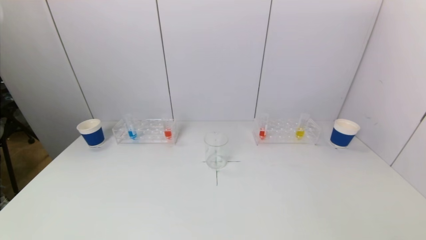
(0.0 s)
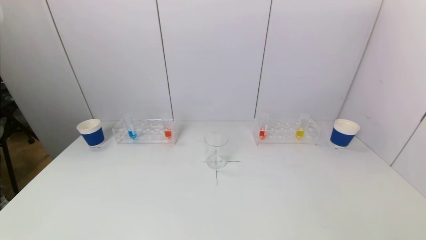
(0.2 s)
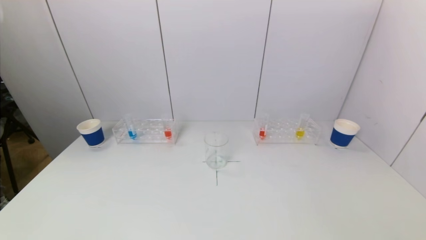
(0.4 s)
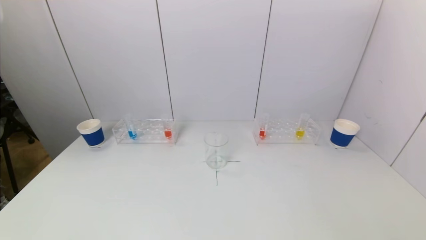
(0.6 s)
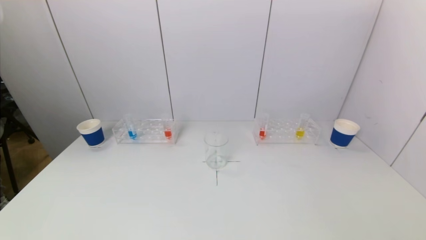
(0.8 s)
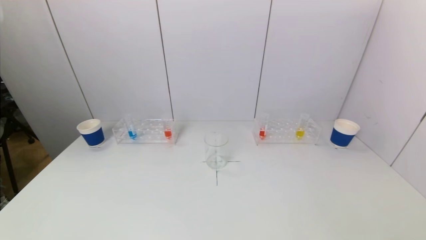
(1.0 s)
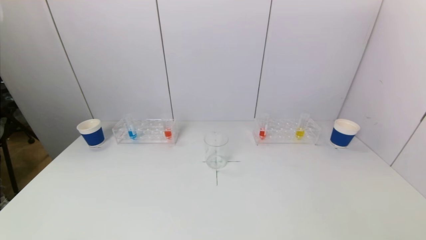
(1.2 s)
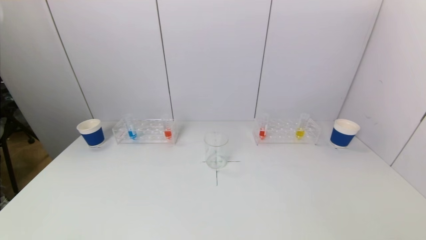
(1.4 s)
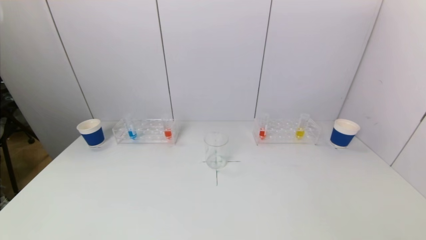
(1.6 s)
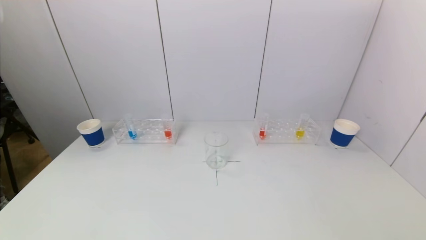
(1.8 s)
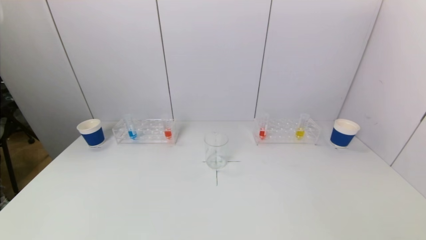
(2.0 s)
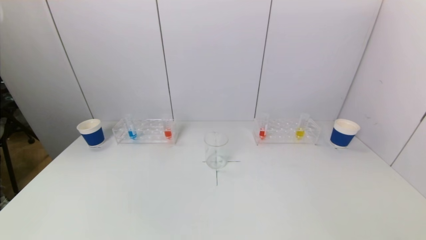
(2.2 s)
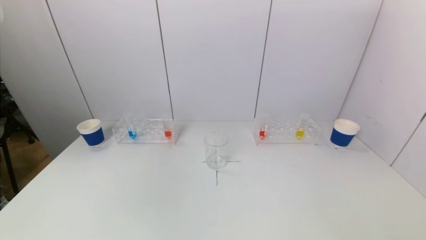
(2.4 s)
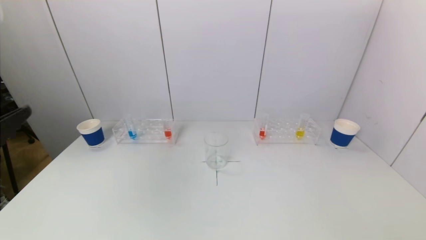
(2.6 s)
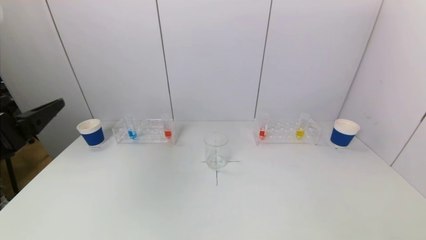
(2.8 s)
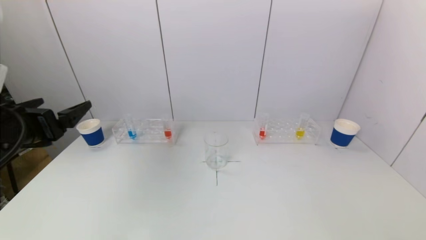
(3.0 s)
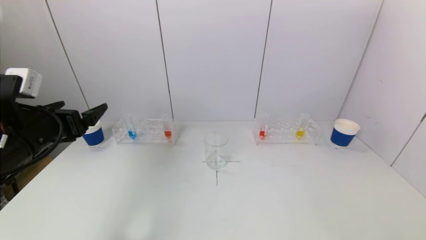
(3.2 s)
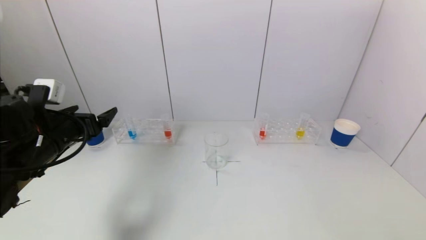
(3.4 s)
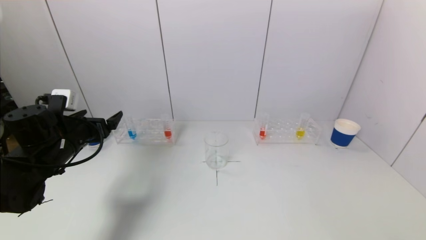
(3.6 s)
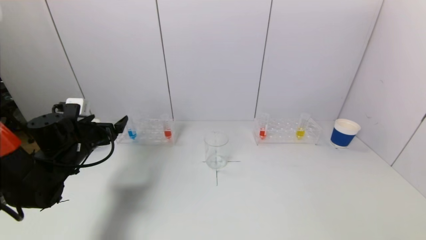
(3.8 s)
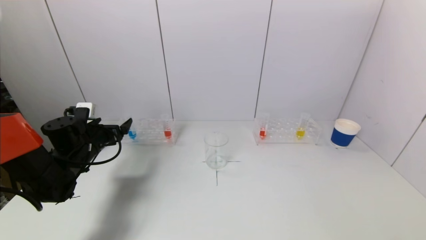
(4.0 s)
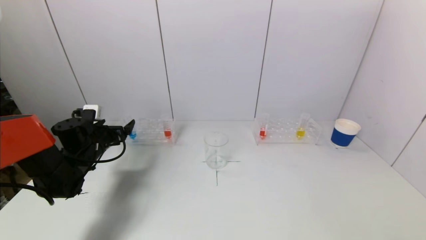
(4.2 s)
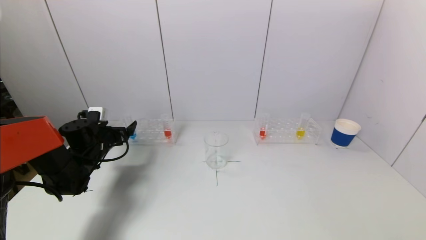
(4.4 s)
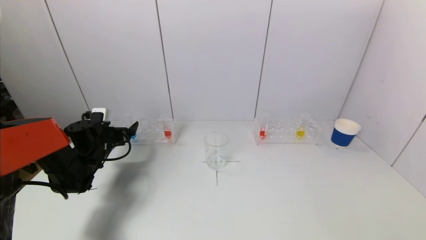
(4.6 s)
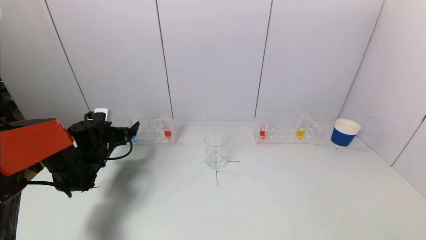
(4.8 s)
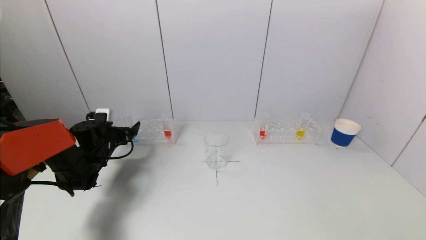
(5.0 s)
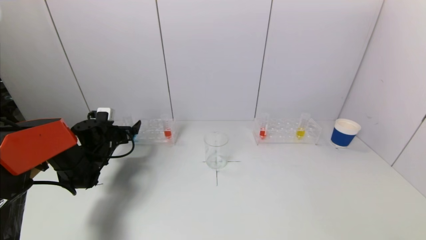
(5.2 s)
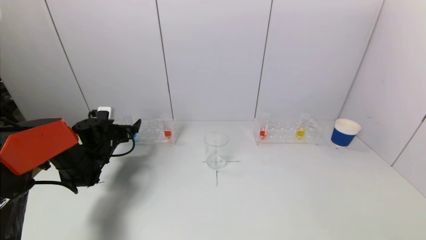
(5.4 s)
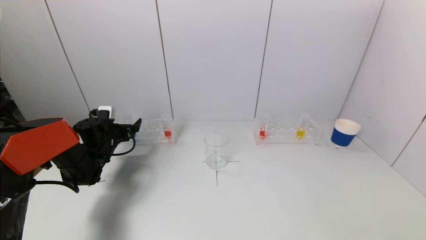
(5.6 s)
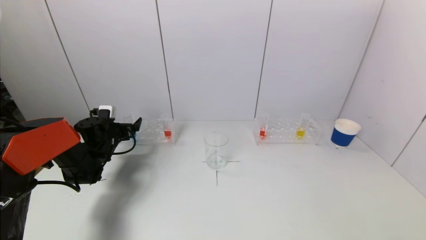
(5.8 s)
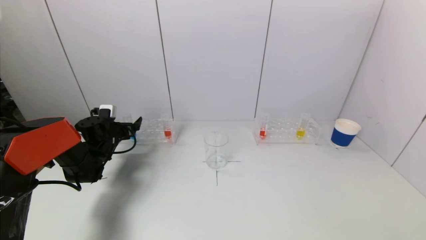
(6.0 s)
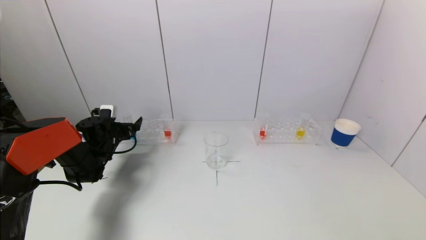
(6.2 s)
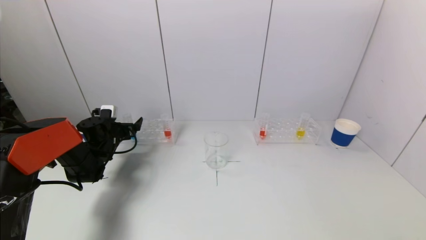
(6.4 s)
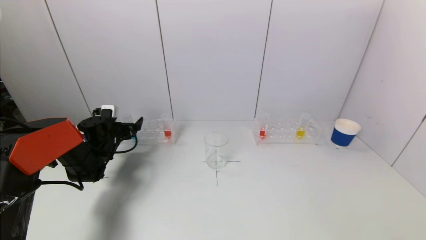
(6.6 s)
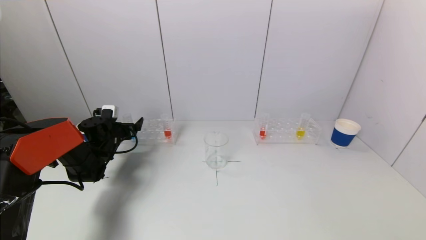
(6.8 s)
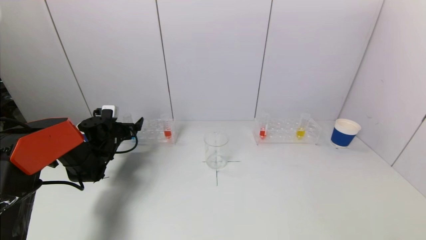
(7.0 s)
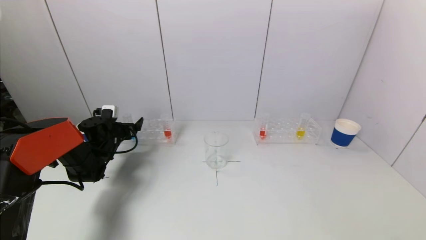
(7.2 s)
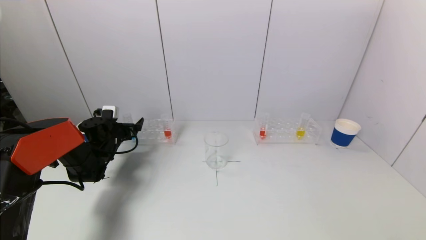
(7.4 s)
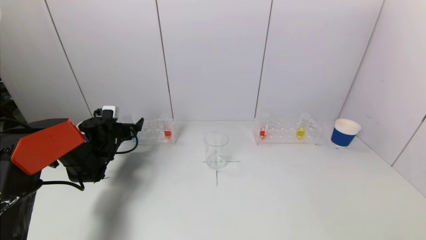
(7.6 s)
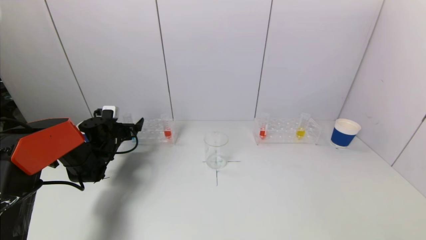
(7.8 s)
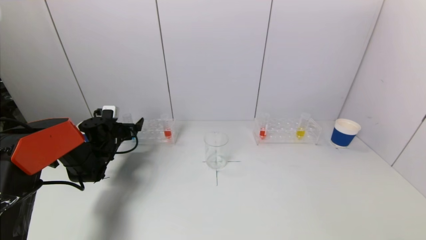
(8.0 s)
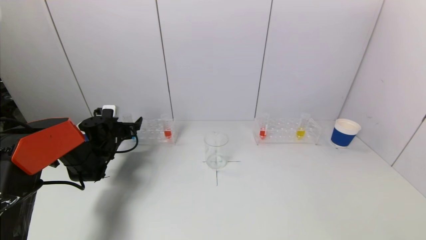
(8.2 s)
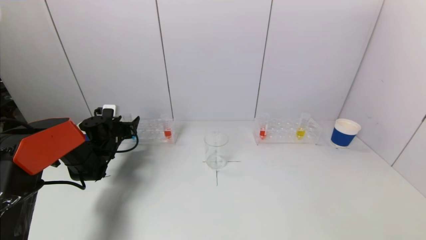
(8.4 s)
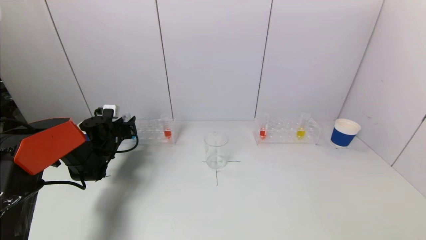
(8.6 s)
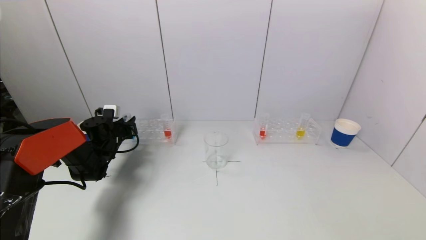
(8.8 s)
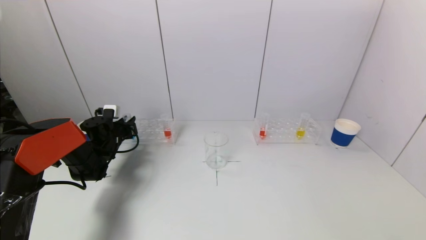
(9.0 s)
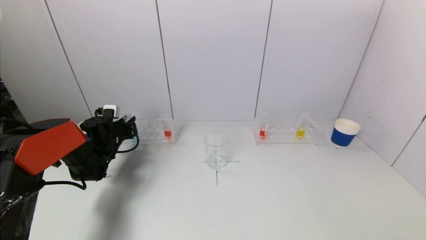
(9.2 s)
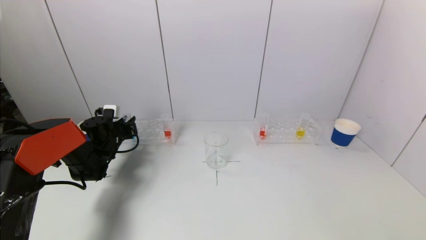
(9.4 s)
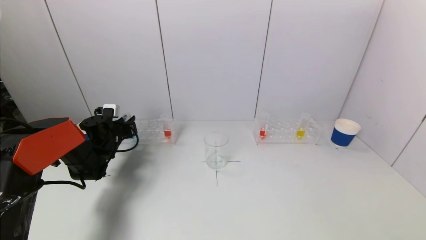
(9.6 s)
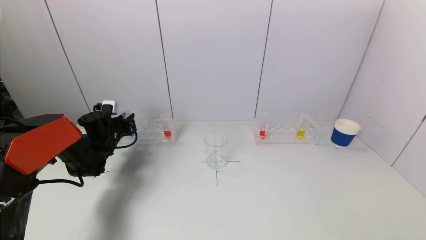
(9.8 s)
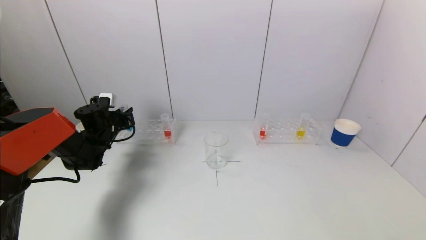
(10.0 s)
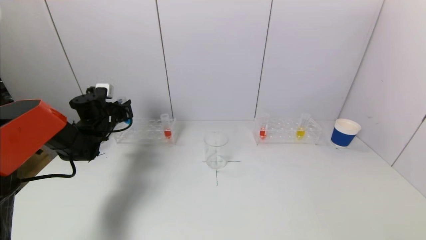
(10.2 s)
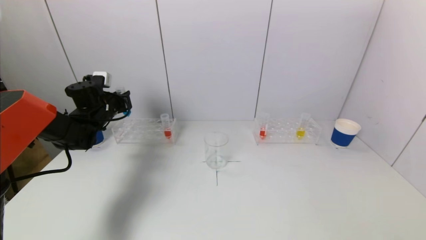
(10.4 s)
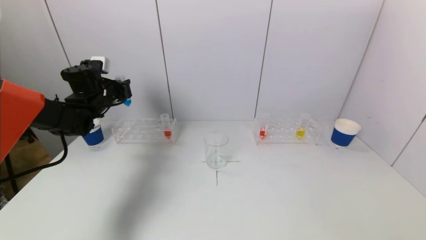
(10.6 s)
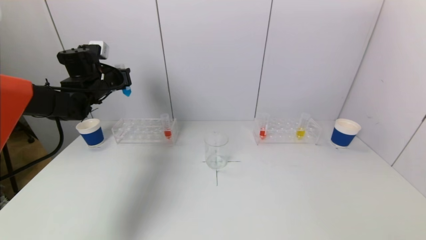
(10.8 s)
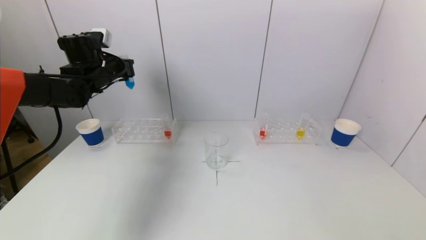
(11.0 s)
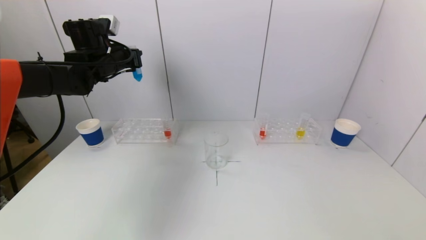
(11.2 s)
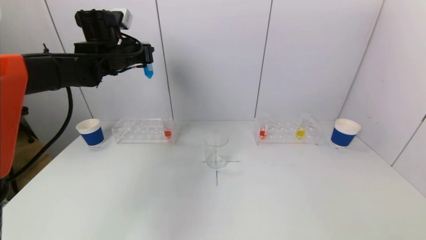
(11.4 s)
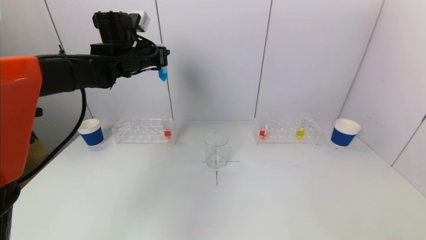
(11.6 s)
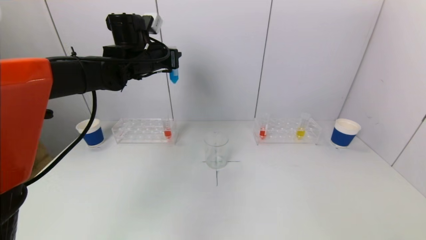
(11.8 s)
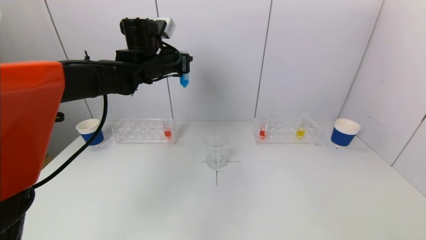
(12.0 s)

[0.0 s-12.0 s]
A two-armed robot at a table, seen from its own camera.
Task of the whole recording: pick up a test tube with pigment on left test tube rack and a test tube with pigment on right test tube rack by grippers and pour them into the beaker.
Step, 0.0 to 8.8 s: Grasp the blue reagent with the left gripper.
1.6 to 3.0 s: The left gripper heads forward and upward, covering roughly 25 cm.
3.0 to 4.4 s: The left gripper shifts roughly 25 cm forward and downward.
4.4 to 6.0 s: The left gripper ends up approximately 5 cm from where it was.
6.0 to 7.6 s: Both grippers stay about where they are.
7.6 to 9.0 s: The left gripper closes.
9.0 to 10.4 s: The left gripper moves upward, roughly 10 cm.
10.4 to 12.0 s: The left gripper heads to the right and upward, covering approximately 20 cm.

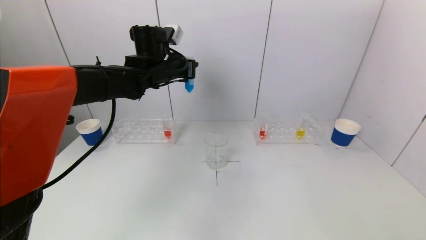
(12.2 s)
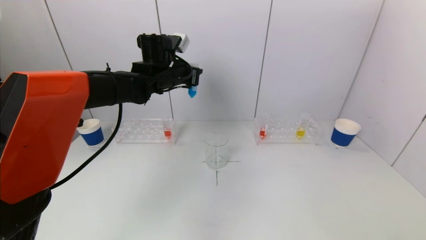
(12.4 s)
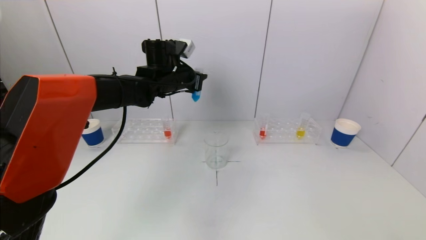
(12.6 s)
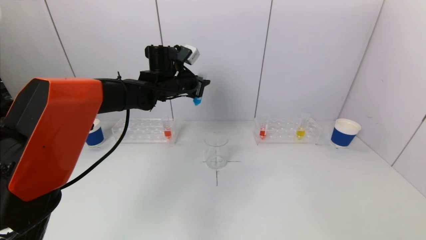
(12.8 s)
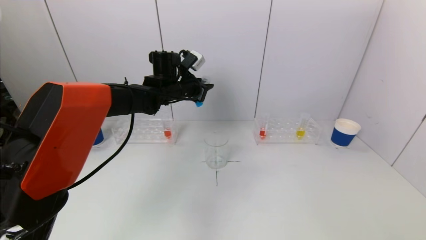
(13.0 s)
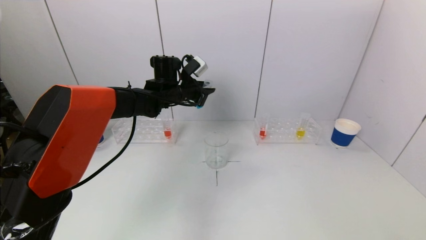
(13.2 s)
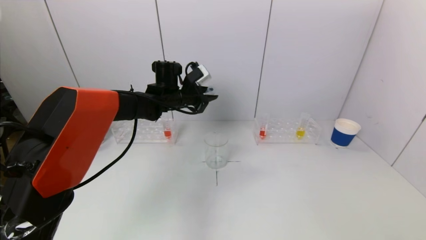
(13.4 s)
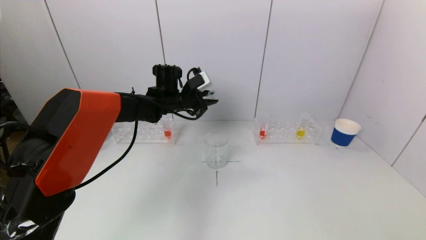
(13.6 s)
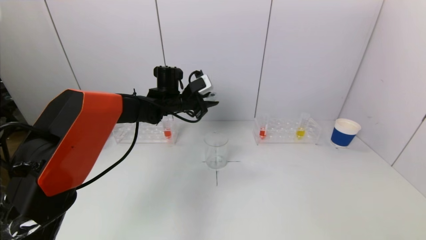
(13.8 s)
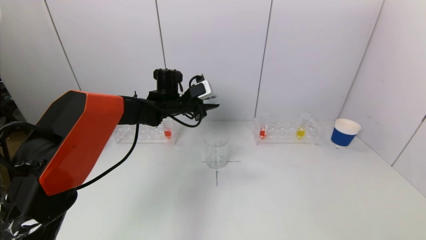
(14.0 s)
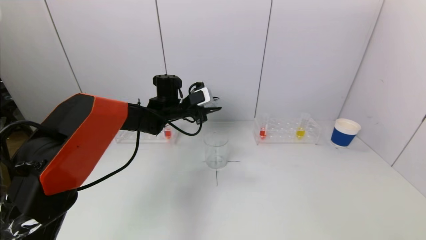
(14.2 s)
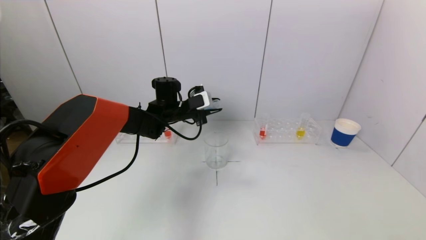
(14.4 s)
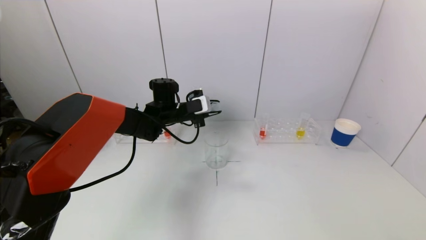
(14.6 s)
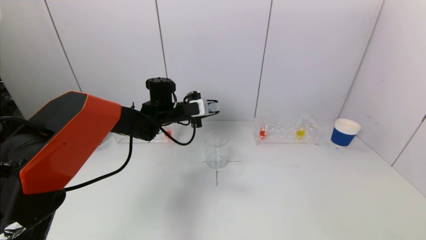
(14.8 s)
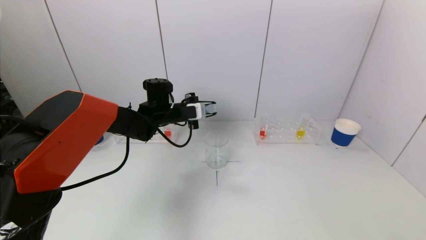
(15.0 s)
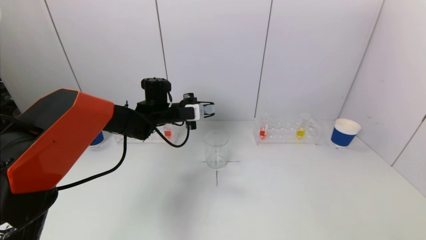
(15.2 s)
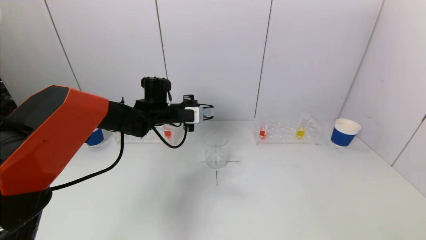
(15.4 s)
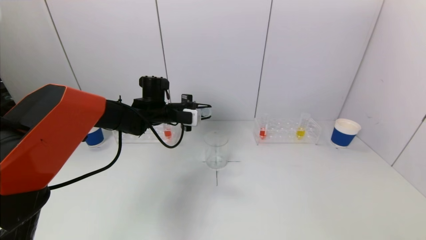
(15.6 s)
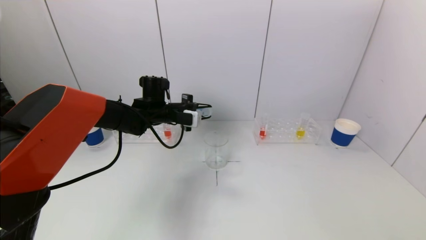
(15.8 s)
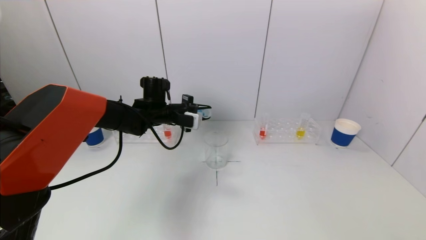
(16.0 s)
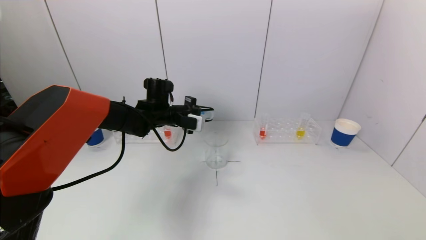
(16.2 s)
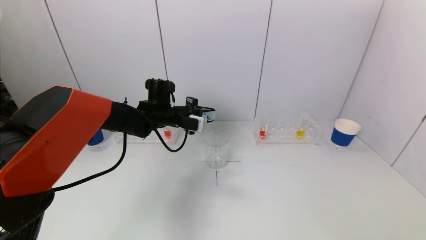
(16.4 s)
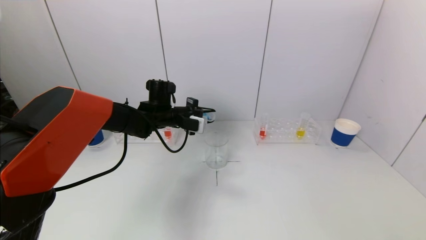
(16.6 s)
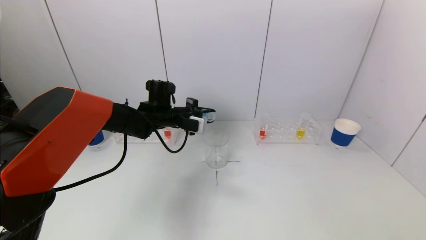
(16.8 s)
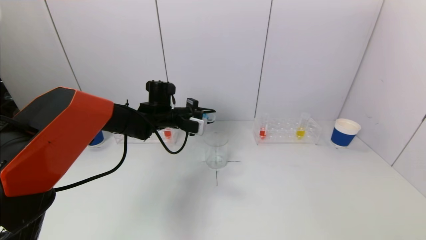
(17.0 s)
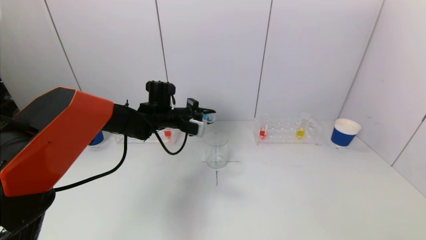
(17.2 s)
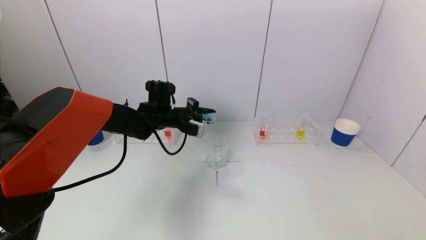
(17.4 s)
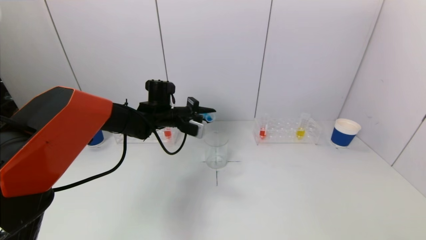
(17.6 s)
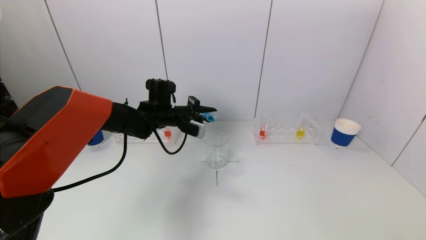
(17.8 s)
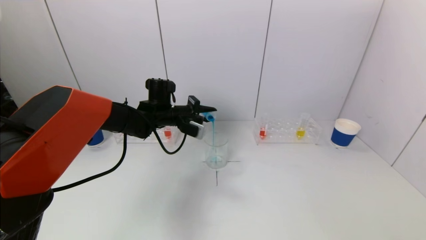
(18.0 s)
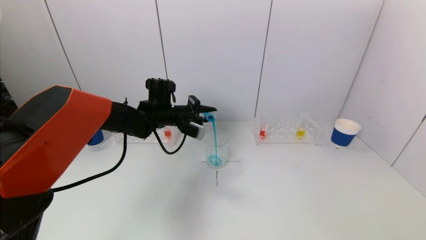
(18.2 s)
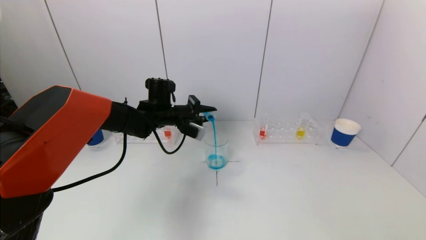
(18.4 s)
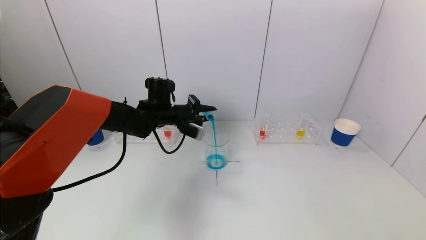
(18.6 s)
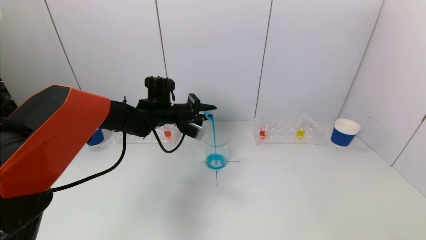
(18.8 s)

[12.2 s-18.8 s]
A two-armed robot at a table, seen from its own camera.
Task of the whole recording: pick up a test tube with pigment on left test tube rack and a test tube with pigment on right test tube rack by grippers and pour them into the beaker.
12.2 to 13.8 s: The left gripper moves downward, about 10 cm.
15.4 to 17.2 s: The grippers move only a little.
17.2 to 18.8 s: The grippers stay close to where they were, moving slightly.
